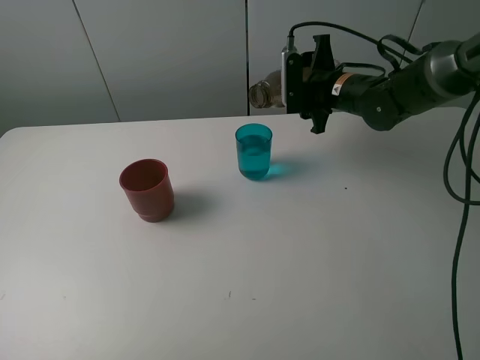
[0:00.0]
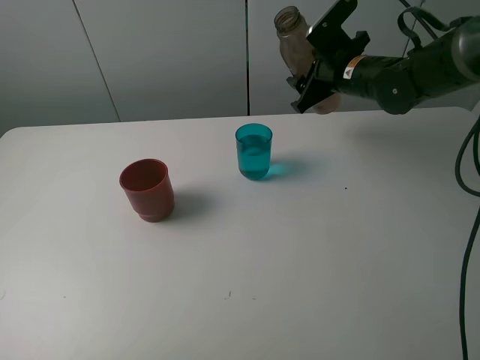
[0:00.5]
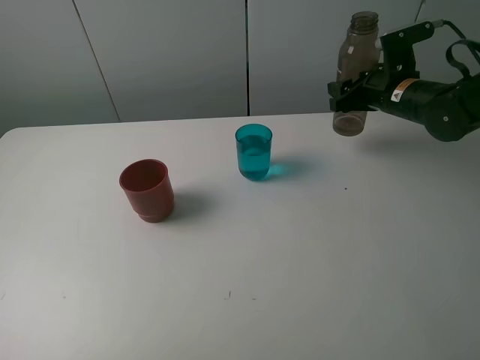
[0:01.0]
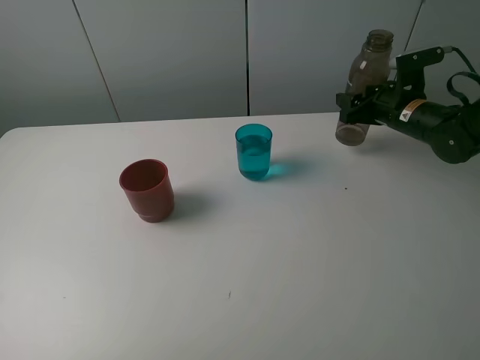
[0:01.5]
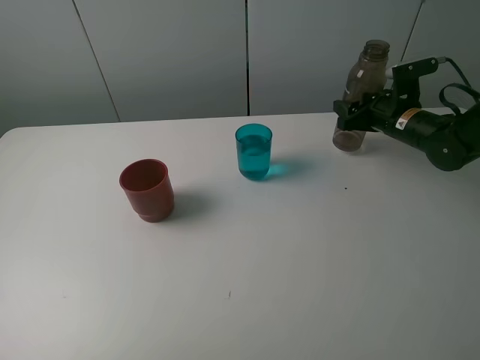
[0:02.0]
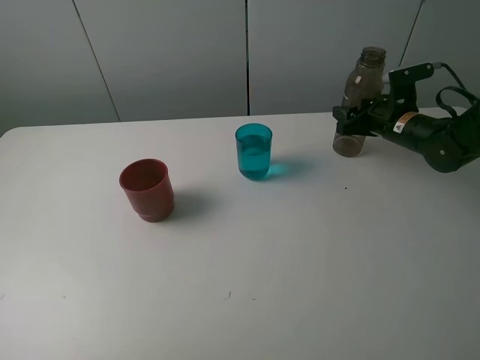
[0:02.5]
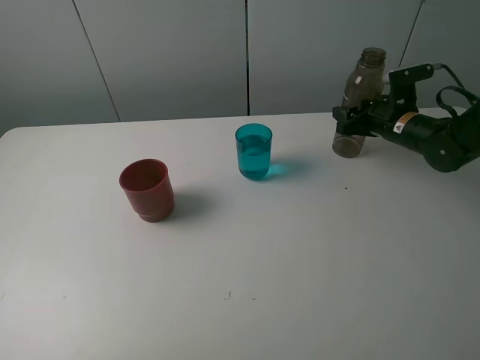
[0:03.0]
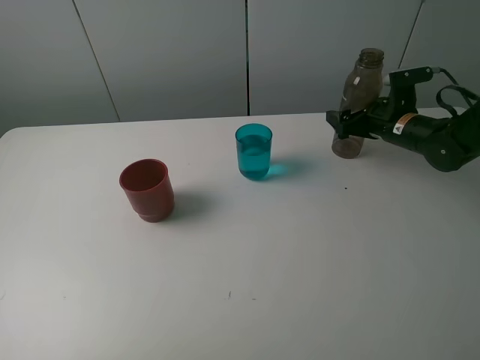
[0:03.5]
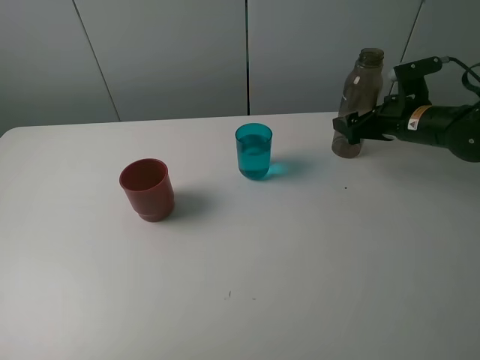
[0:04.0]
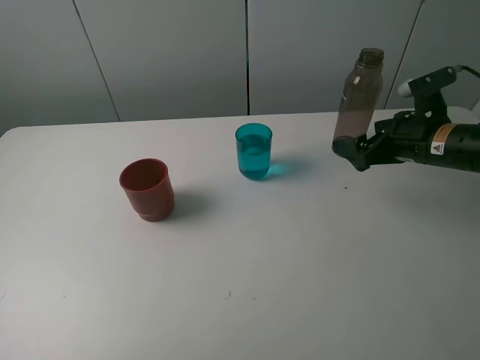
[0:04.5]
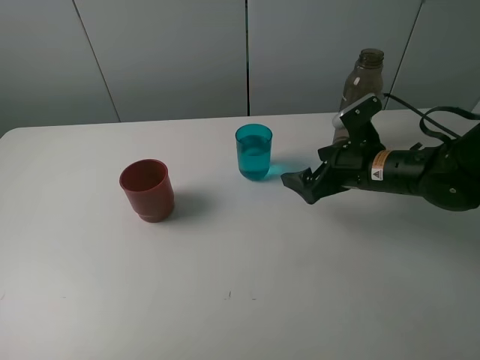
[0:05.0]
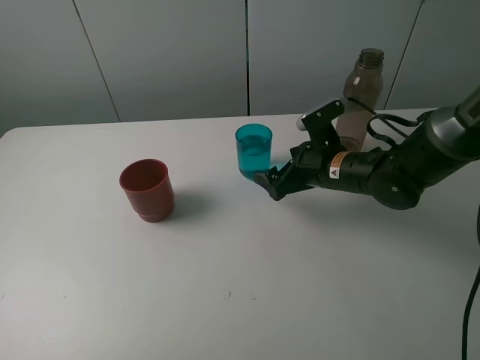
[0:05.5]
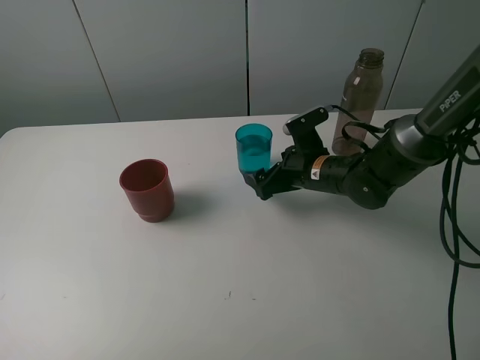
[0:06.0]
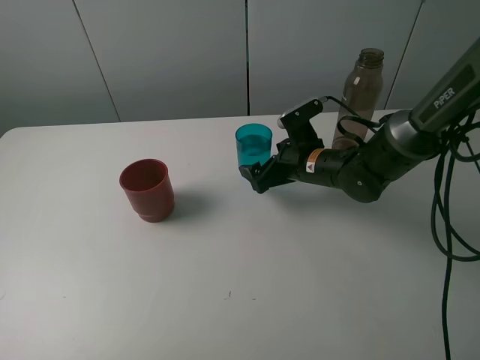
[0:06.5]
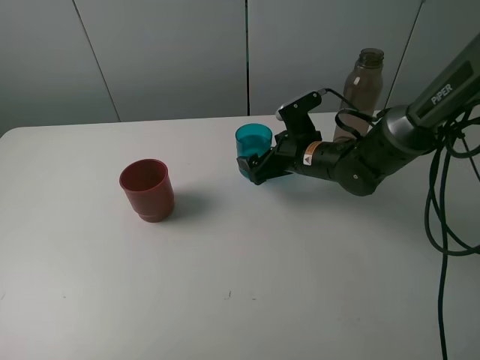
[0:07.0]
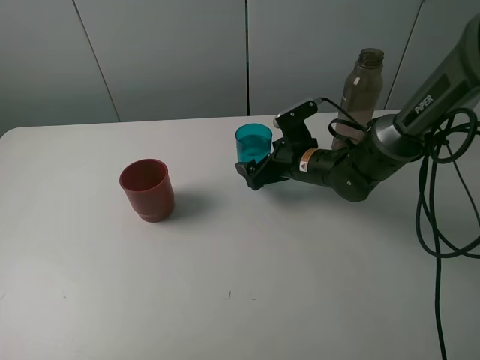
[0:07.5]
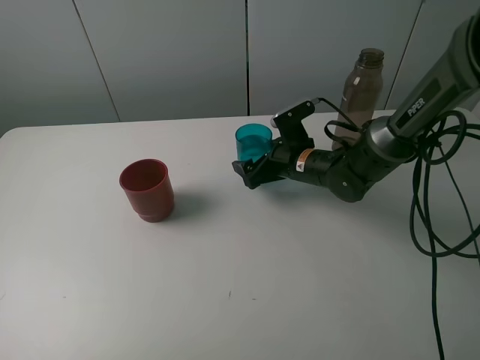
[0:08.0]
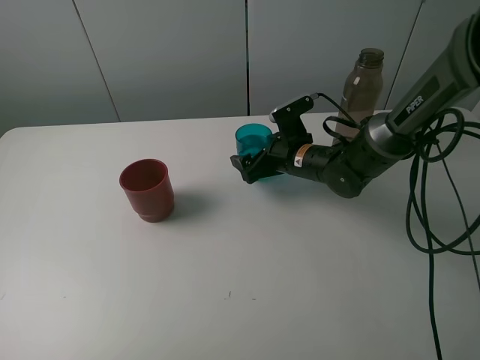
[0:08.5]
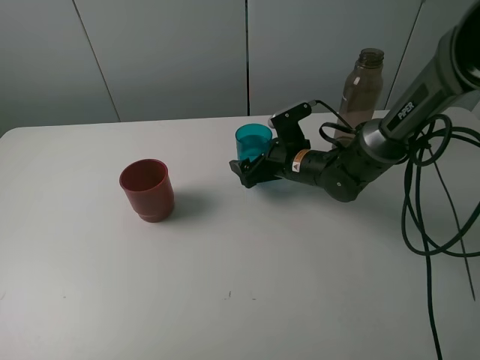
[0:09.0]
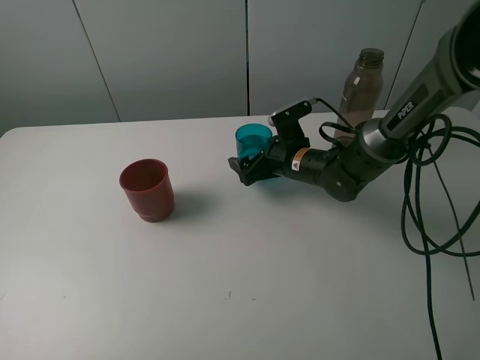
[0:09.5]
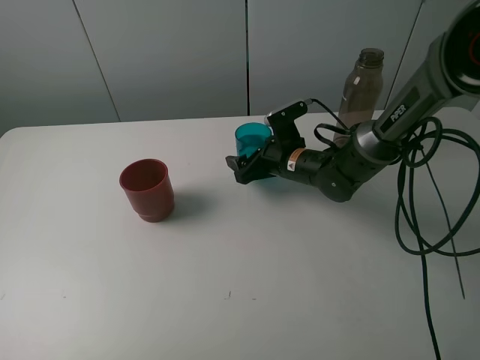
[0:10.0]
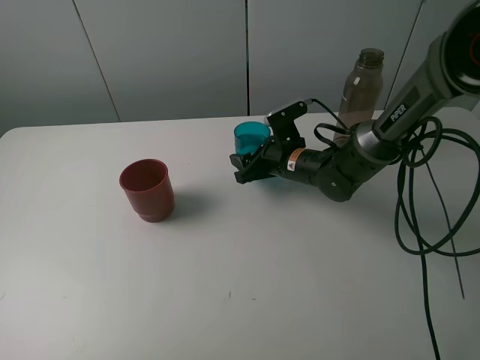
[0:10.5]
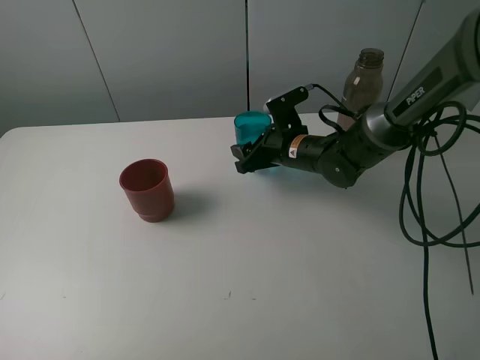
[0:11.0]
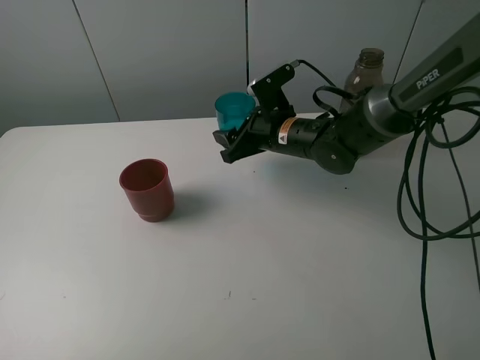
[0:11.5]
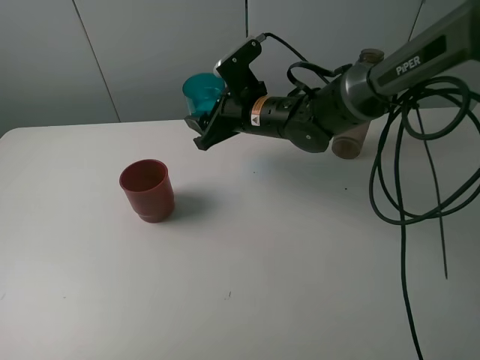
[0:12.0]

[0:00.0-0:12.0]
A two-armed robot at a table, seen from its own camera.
Task of the whole recording: pick up the bottle and pour water into the cup, then pick up the cup containing water and pour it into another cup.
Step, 0:00.0 to 0:03.5: Place the brown bottle with the right gripper.
Step, 0:04.0 to 0:10.5: Grasp the blue cup with the right gripper.
0:00.0 to 0:02.0: The right gripper is displaced to the right and downward by about 10 cm.
0:02.0 to 0:04.0: The right gripper opens its fingers.
0:04.0 to 0:06.0: The right gripper shifts approximately 15 cm to the left.
0:06.0 to 0:08.0: The grippers stay close to where they were, moving slightly.
0:08.0 to 0:10.0: The right gripper closes up.
0:10.0 to 0:12.0: The right gripper moves upward and to the left, roughly 10 cm, and closes.

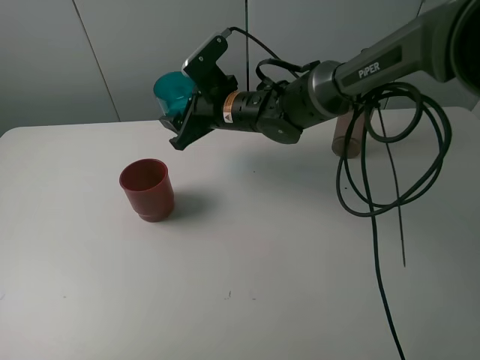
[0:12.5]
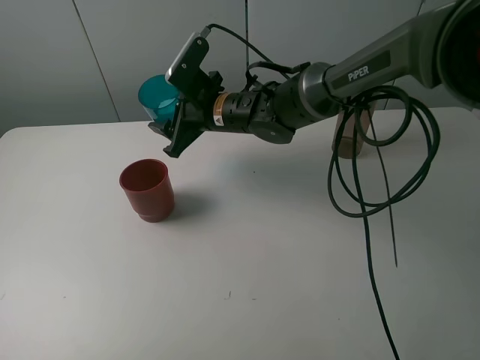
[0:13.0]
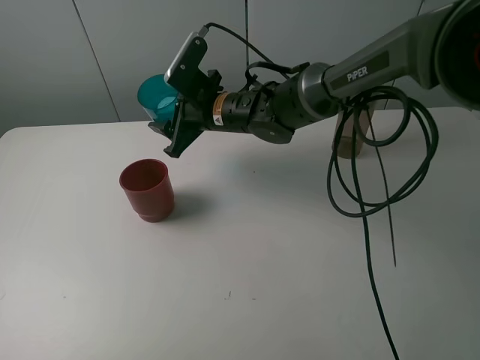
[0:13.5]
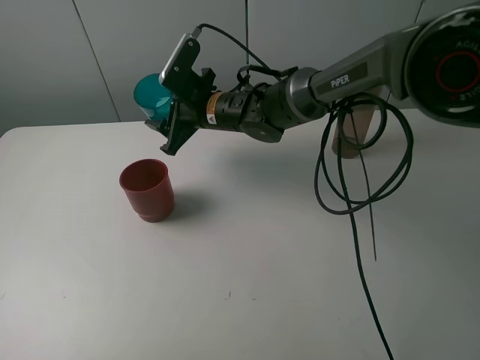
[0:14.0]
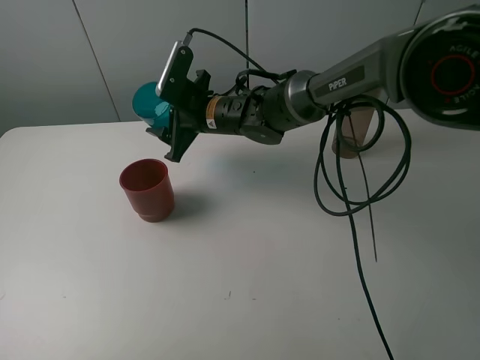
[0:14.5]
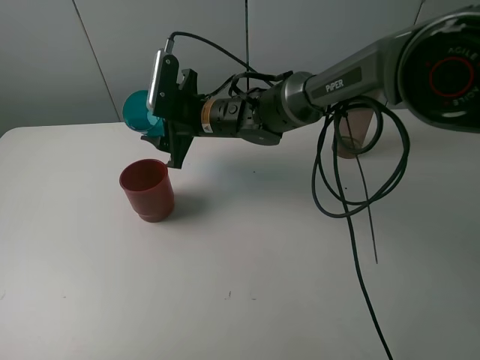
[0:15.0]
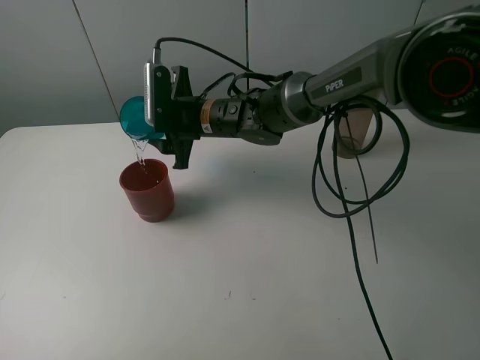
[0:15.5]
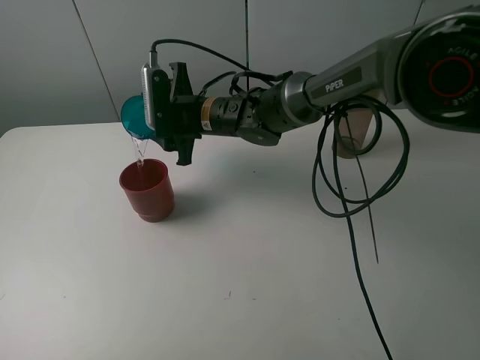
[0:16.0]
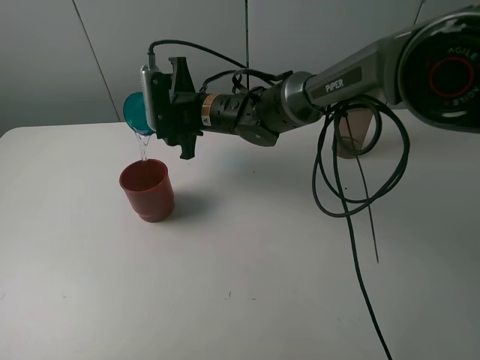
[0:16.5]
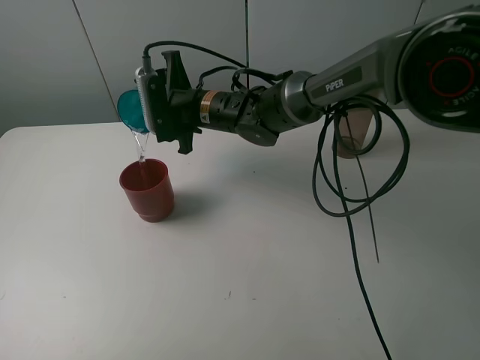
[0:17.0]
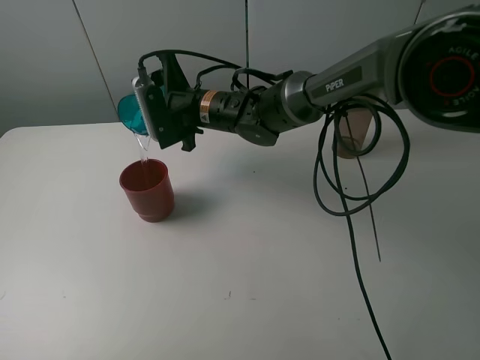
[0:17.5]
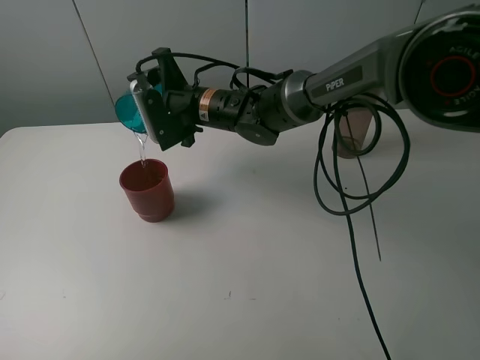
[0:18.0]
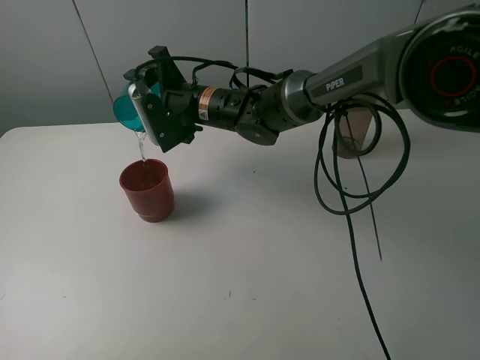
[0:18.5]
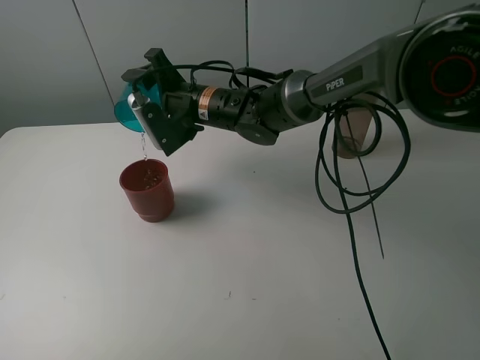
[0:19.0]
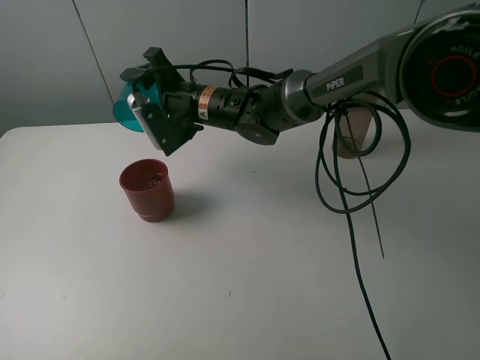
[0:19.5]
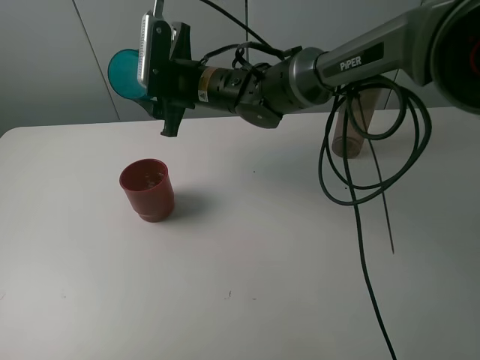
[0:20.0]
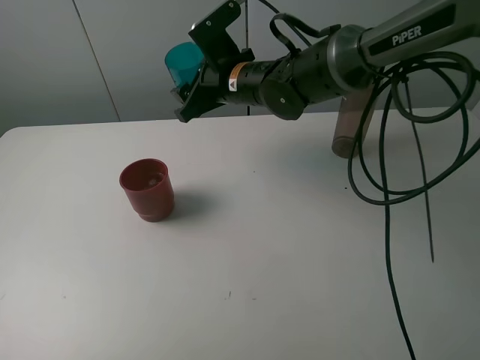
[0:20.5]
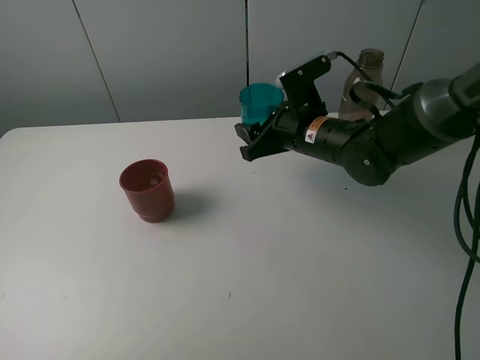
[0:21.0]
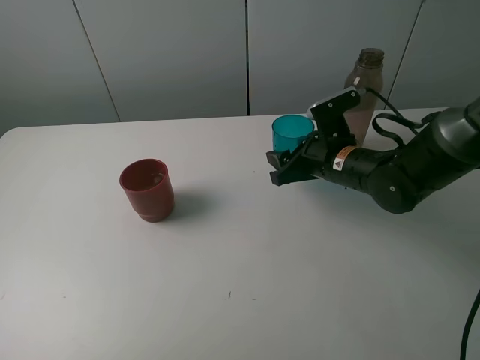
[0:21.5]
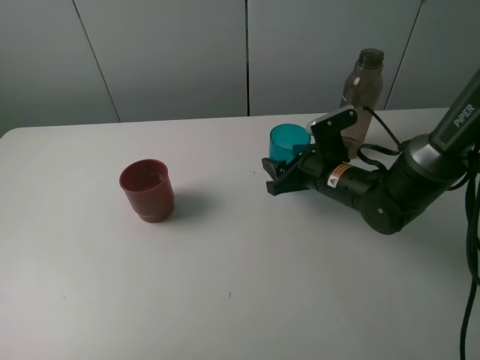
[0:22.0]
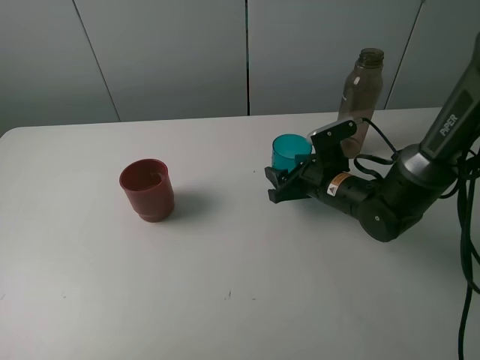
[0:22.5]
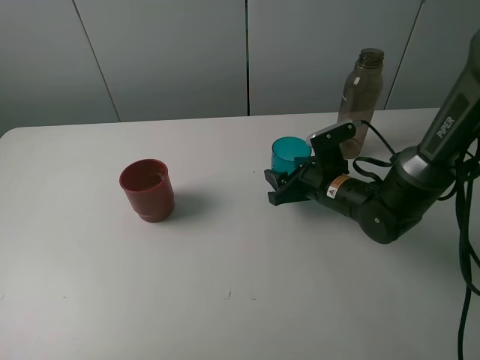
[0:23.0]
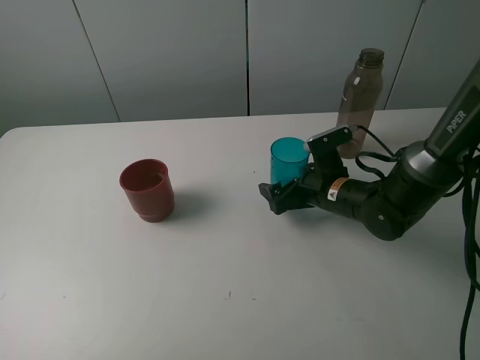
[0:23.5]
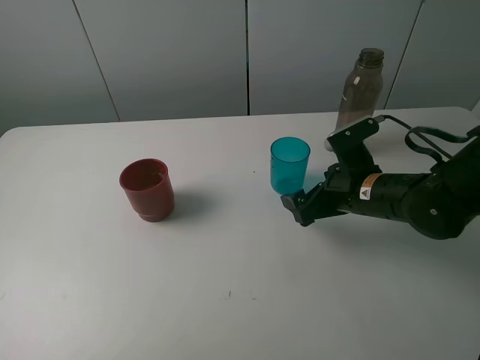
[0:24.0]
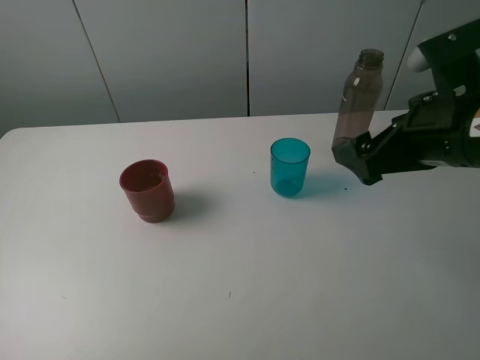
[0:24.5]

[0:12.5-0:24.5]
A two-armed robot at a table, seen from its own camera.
Task of the whole recording: pick up the bottle and pour water into the cup, then pick up the cup containing water and pour it into another cup.
Step, 0:12.5 to 0:19.5: Pour water from blue cup to red cup with the right gripper.
Step, 0:20.0 to 0:23.0: Place the blue cup with the right gripper.
0:12.5 to 0:14.5: The grippers make only small movements.
0:18.5 to 0:20.5: The right gripper shifts approximately 5 cm to the right.
0:20.5 to 0:22.5: The right gripper travels to the right, downward and backward by about 20 cm.
0:22.5 to 0:24.5: The right gripper is displaced upward and backward by approximately 25 cm, and opens up.

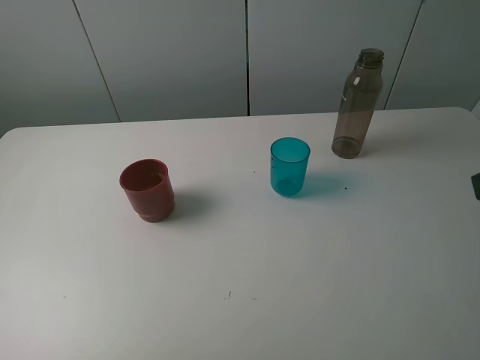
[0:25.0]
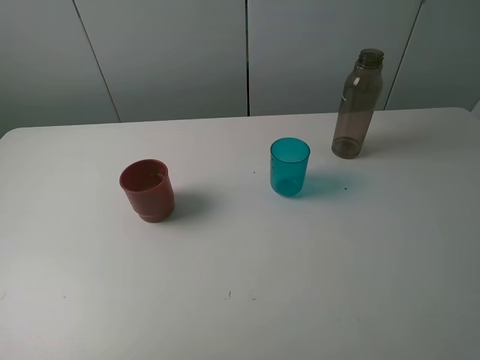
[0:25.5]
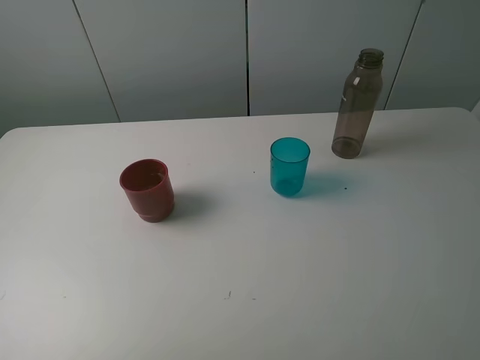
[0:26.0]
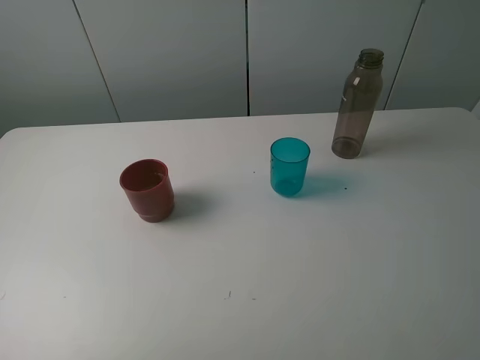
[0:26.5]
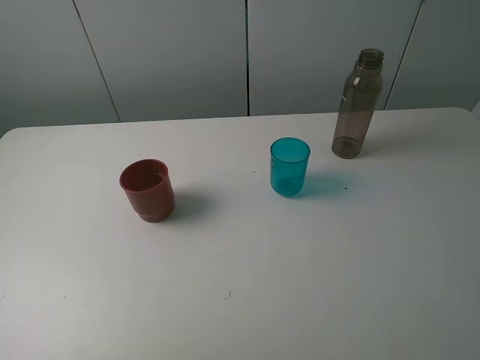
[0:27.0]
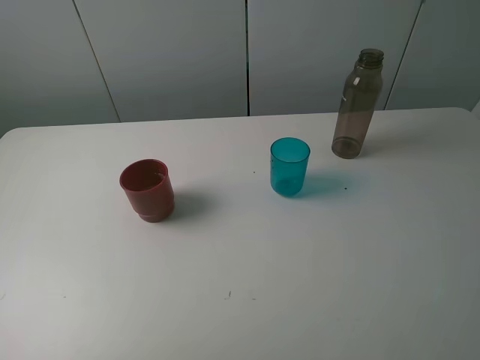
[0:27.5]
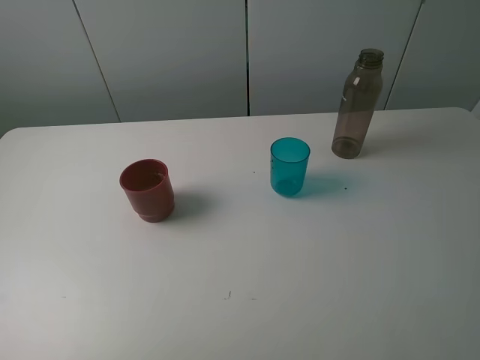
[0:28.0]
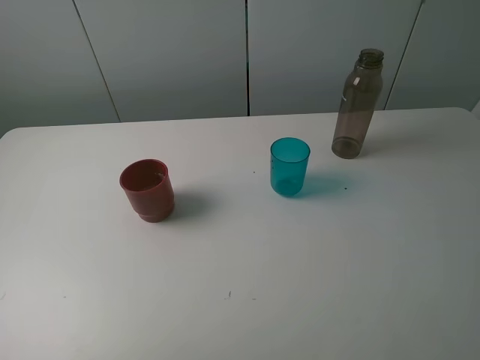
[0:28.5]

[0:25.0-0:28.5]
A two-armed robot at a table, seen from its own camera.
Task of the whole recording: pick up the bottle and pour water into the cup, then pick up the cup containing water and pour it into another cup.
0:27.0 to 0:28.5: The two grippers keep their place.
